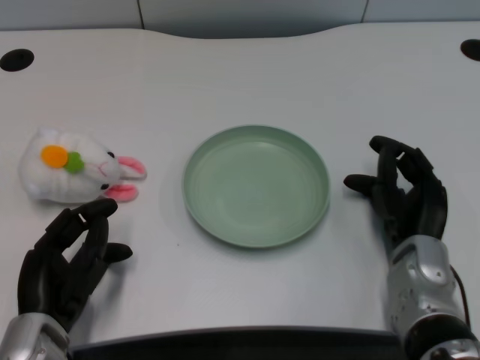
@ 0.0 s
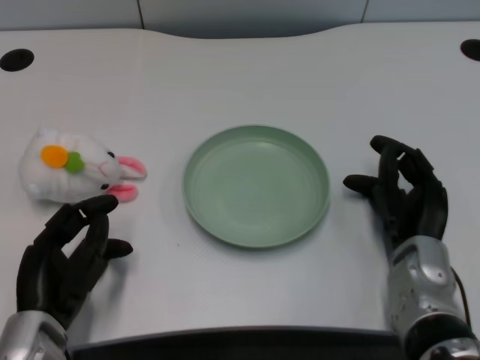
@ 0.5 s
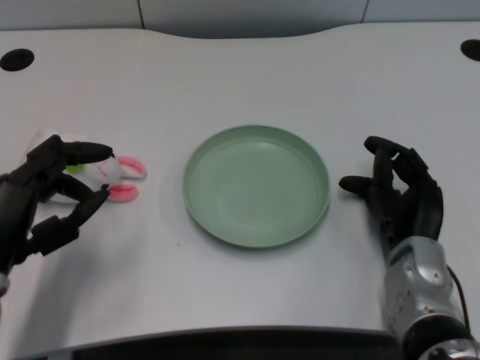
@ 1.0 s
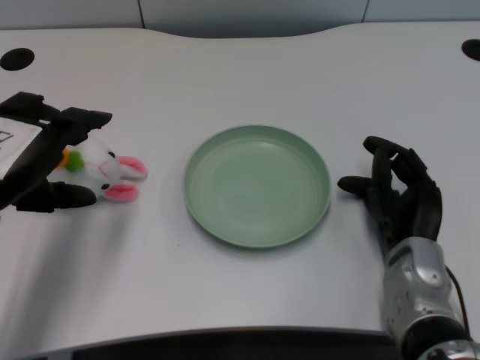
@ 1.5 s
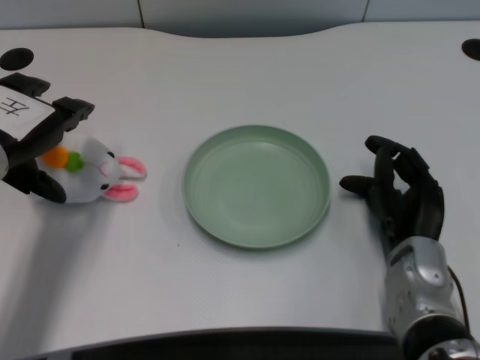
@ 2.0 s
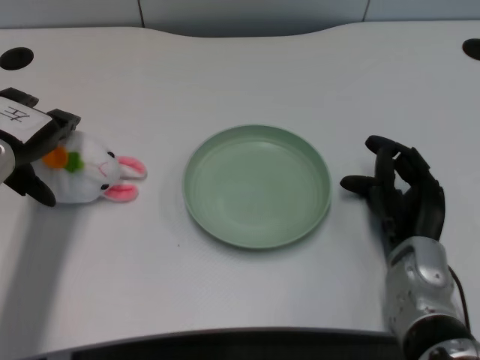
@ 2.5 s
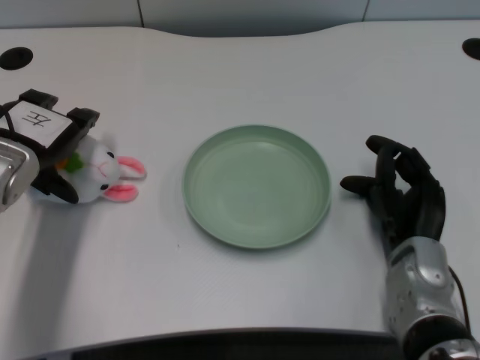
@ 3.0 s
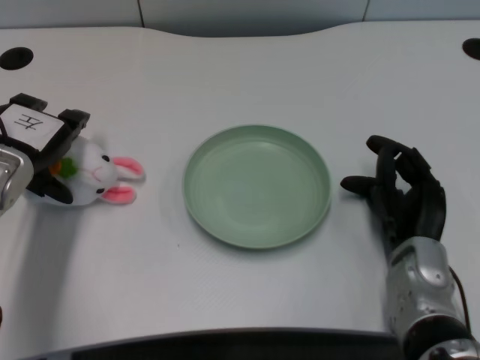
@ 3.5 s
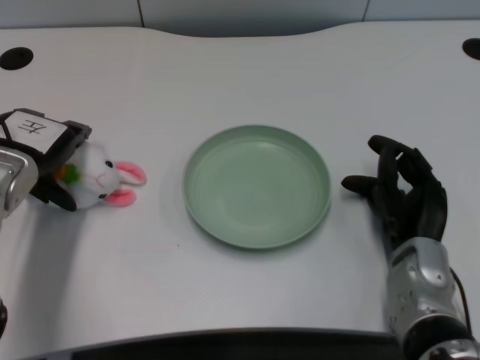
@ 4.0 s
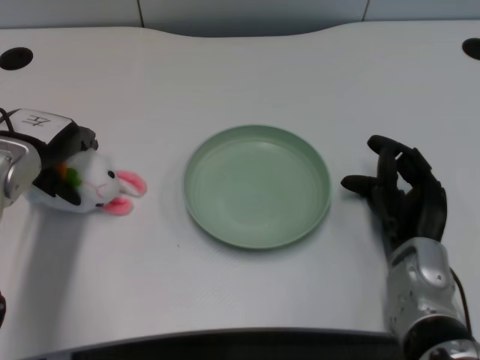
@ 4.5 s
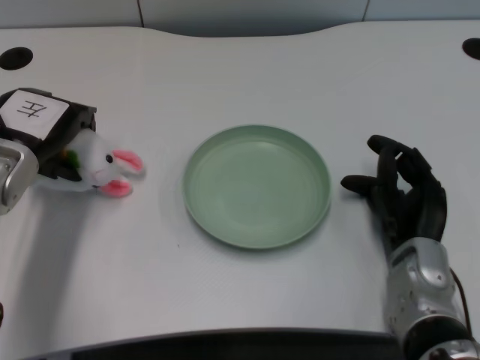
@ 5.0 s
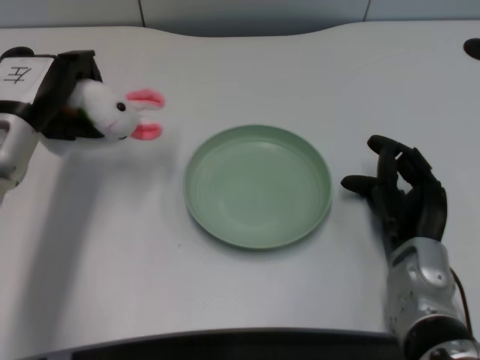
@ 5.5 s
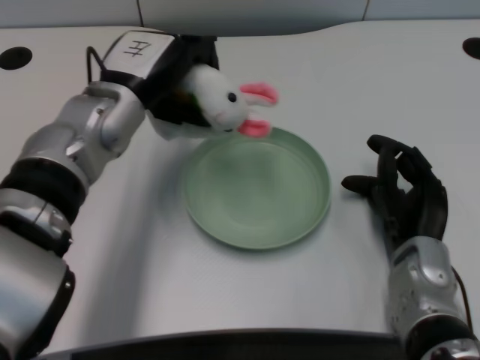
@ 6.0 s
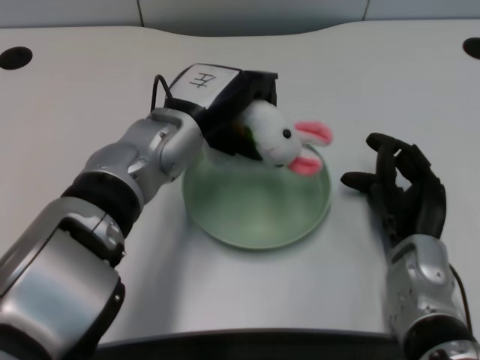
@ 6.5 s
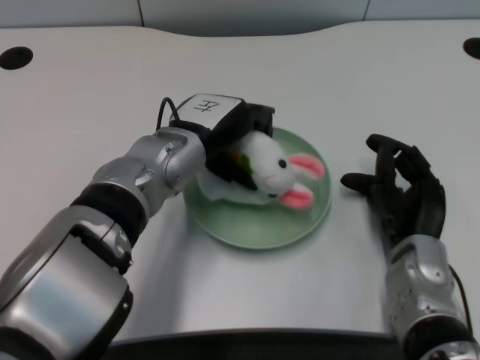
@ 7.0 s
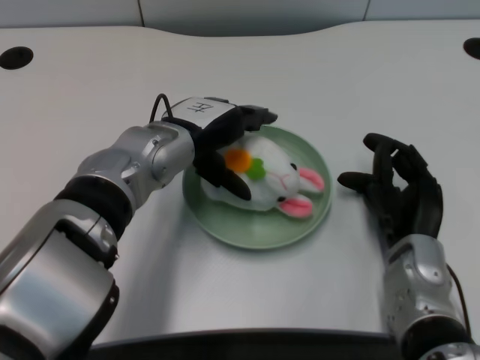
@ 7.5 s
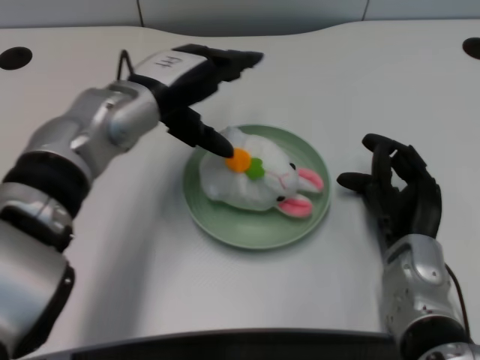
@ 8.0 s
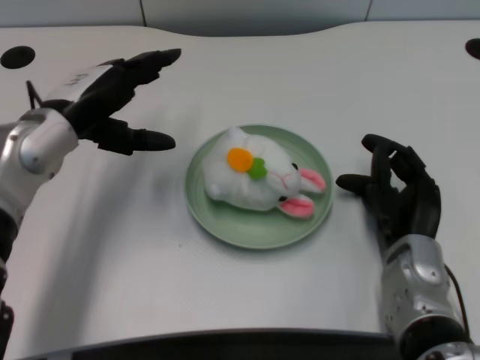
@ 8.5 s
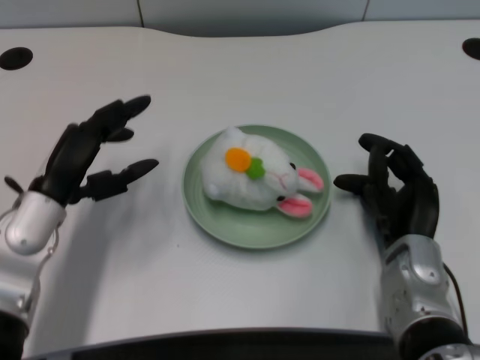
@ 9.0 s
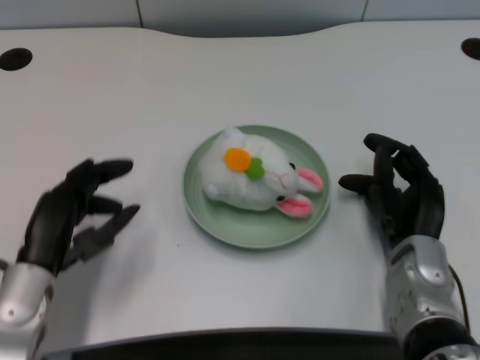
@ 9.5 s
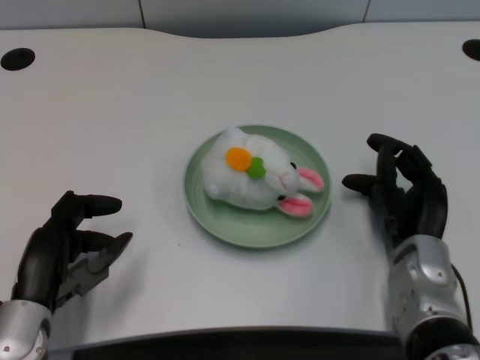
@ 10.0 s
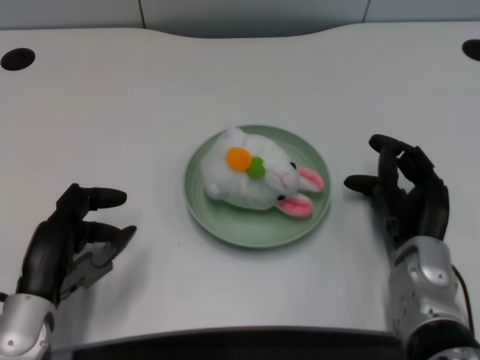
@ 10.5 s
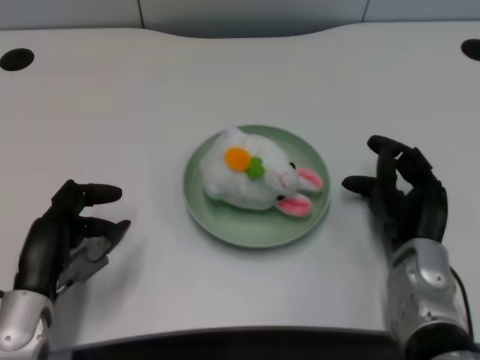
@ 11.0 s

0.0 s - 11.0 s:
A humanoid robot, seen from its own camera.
Task of the whole recording: pick up the rabbit doll from the table and place it on the plate.
Step, 1.0 s - 5.0 s: Grasp the rabbit doll with the left gripper.
Step, 5.5 s - 7.5 s: Place the rabbit doll into the plate with the left gripper.
2.0 s - 3.5 s: The left hand is displaced downward by some 5 cm.
5.5 s - 7.5 s: The left hand heads to the right, covering roughly 15 cm.
7.5 s - 9.0 s: The left hand shifts approximately 15 cm to the left and backward.
9.0 s - 11.0 s: The left hand heads backward and downward, covering approximately 10 cm.
